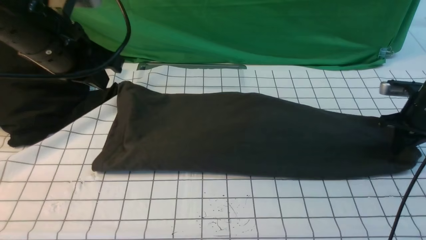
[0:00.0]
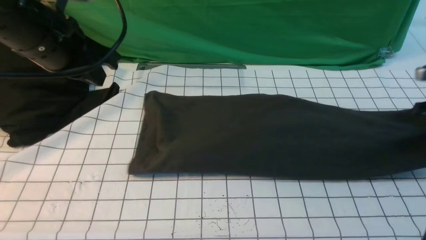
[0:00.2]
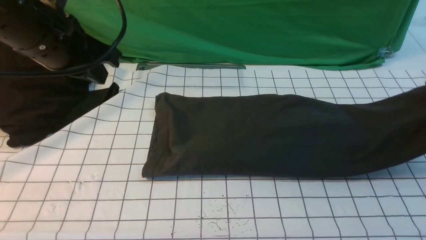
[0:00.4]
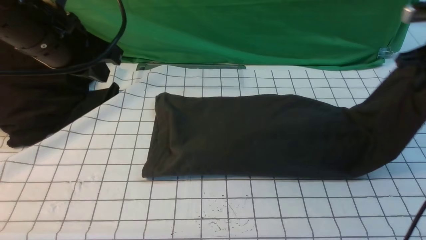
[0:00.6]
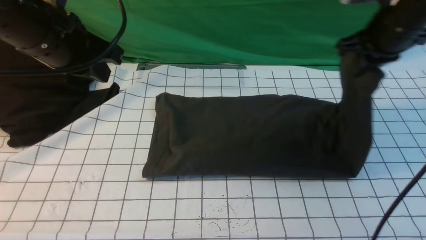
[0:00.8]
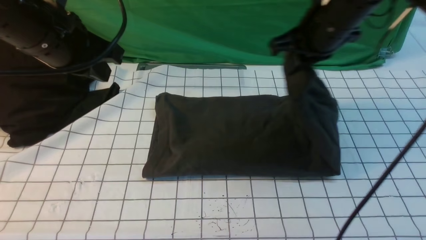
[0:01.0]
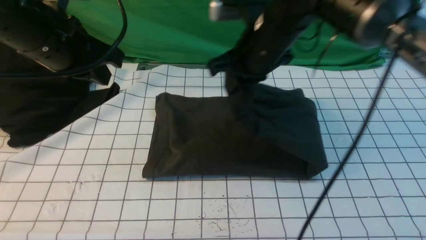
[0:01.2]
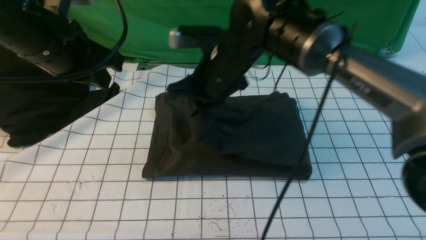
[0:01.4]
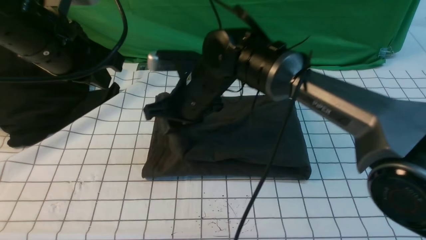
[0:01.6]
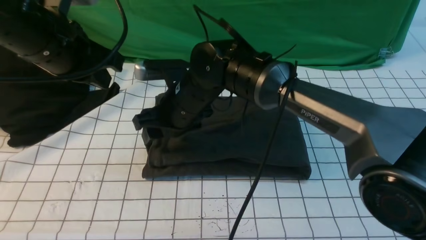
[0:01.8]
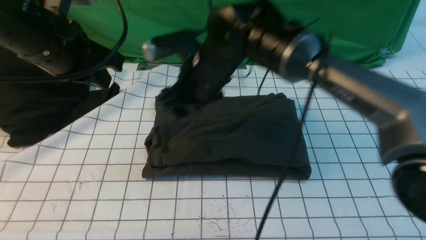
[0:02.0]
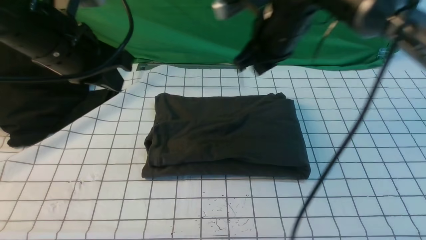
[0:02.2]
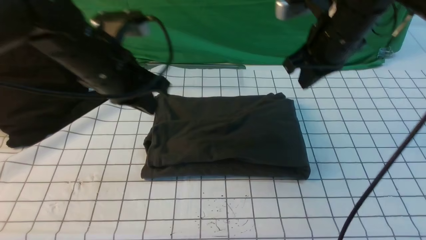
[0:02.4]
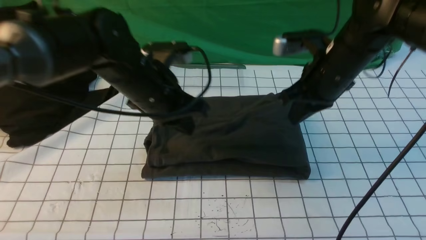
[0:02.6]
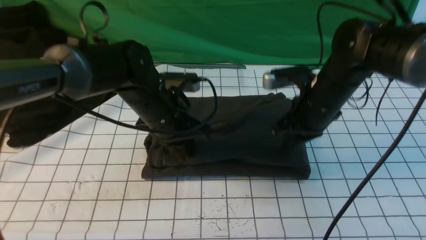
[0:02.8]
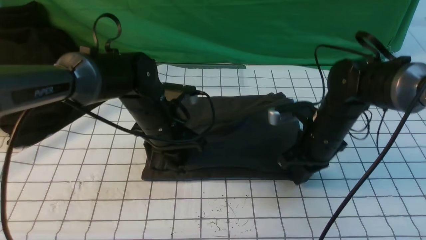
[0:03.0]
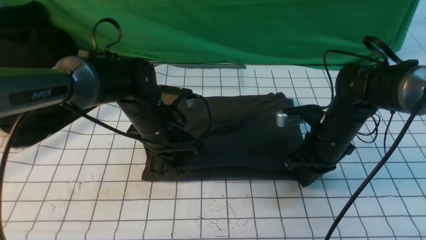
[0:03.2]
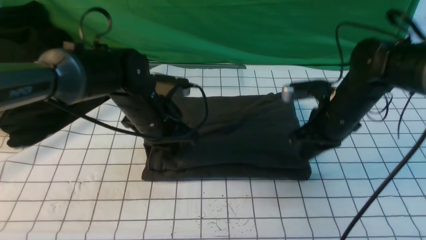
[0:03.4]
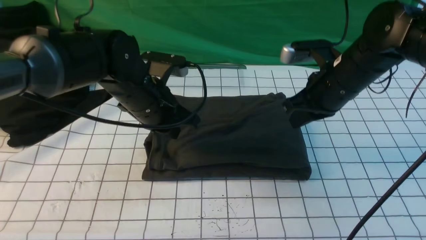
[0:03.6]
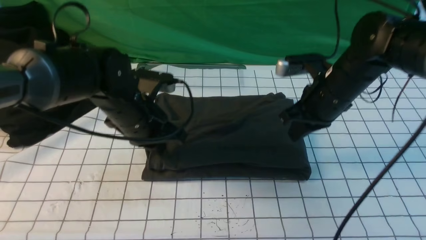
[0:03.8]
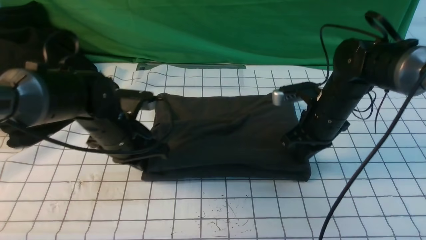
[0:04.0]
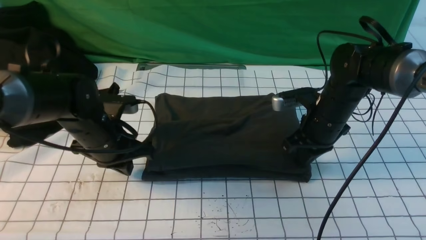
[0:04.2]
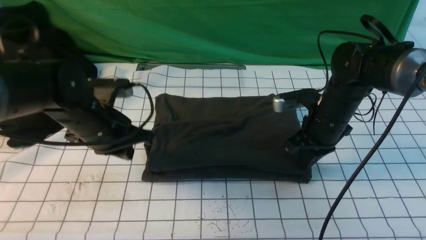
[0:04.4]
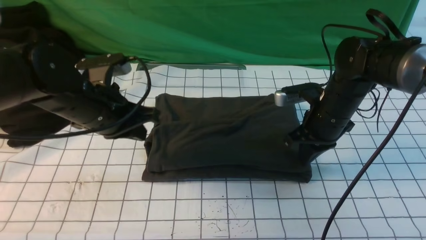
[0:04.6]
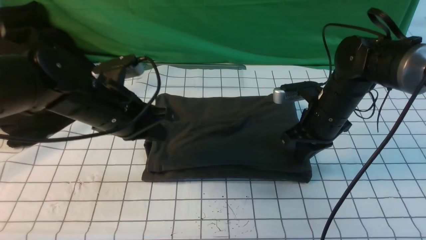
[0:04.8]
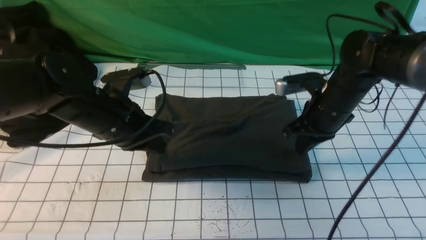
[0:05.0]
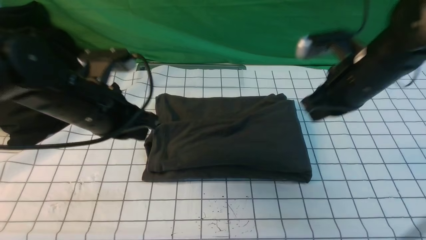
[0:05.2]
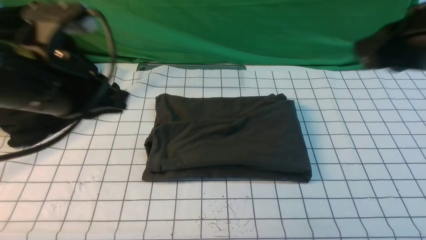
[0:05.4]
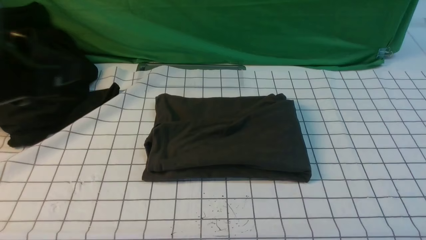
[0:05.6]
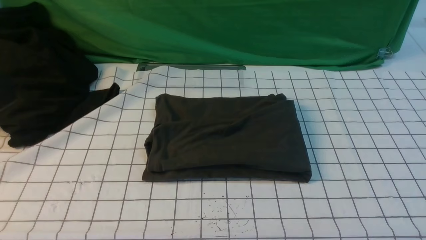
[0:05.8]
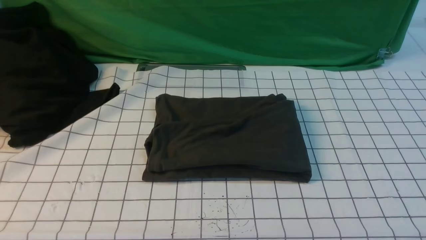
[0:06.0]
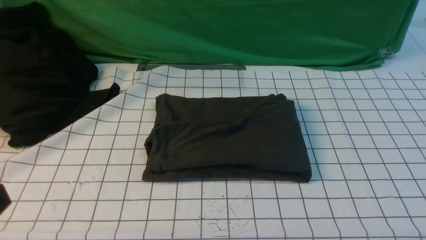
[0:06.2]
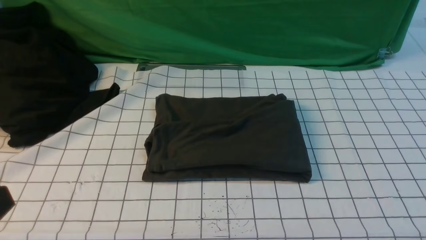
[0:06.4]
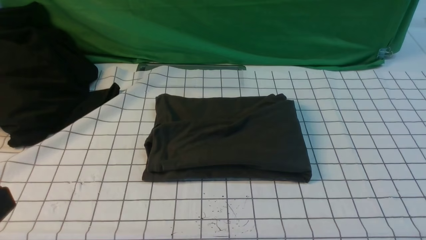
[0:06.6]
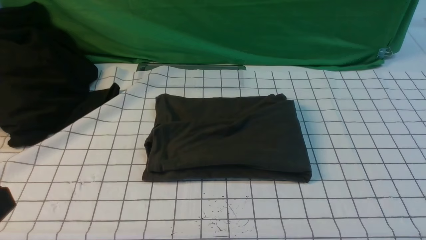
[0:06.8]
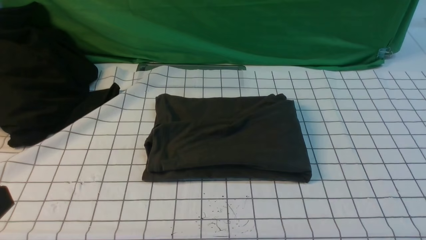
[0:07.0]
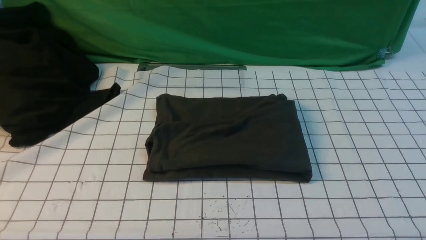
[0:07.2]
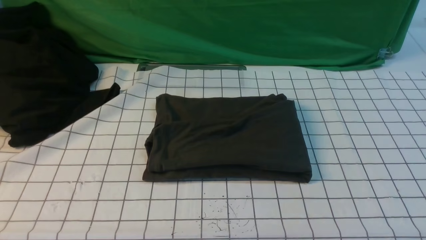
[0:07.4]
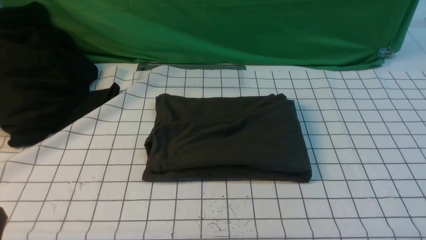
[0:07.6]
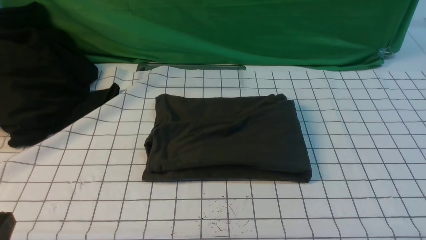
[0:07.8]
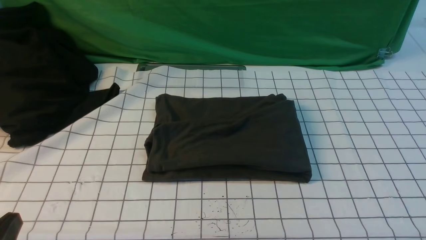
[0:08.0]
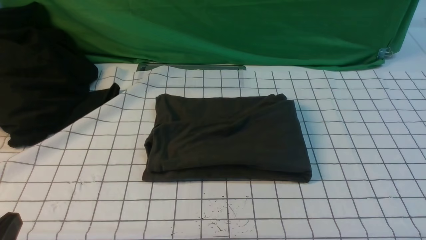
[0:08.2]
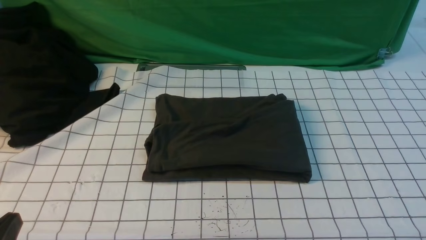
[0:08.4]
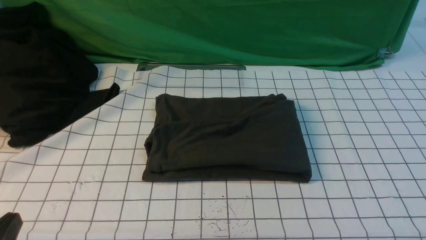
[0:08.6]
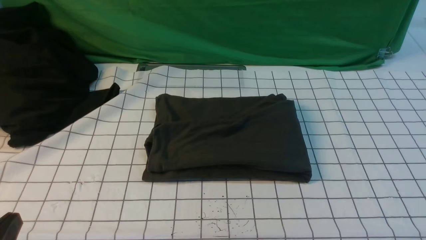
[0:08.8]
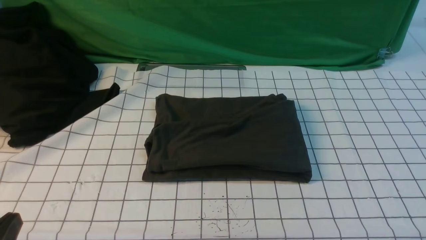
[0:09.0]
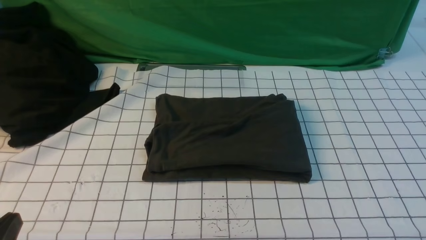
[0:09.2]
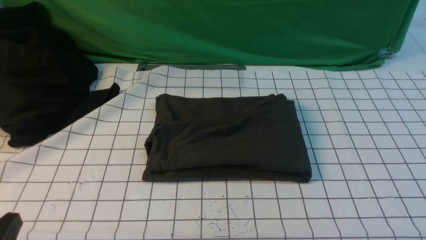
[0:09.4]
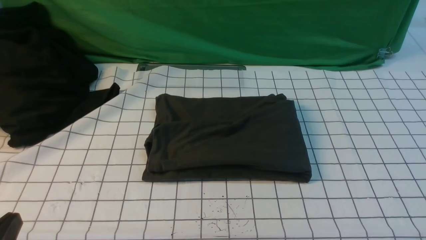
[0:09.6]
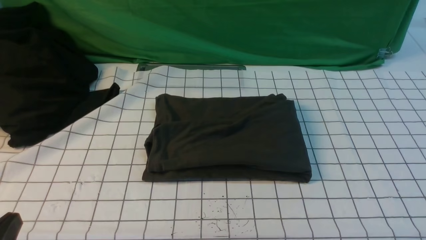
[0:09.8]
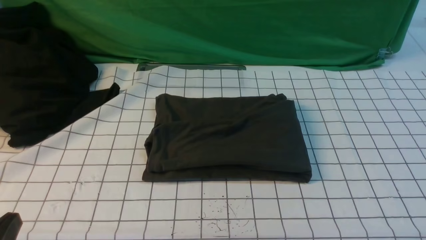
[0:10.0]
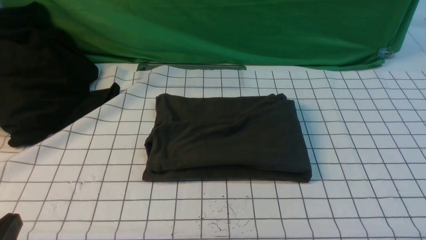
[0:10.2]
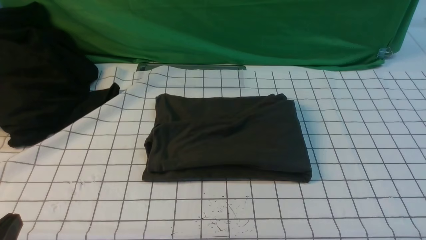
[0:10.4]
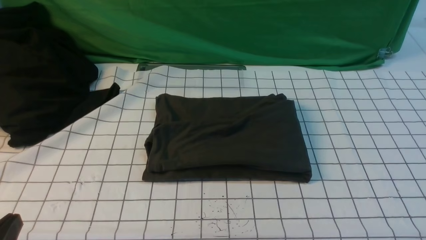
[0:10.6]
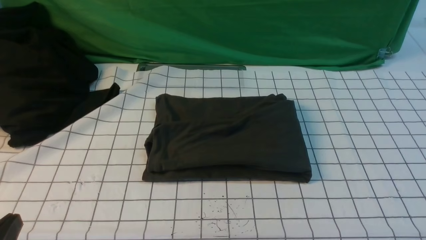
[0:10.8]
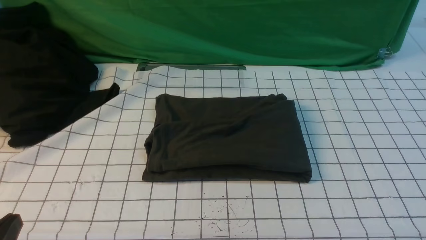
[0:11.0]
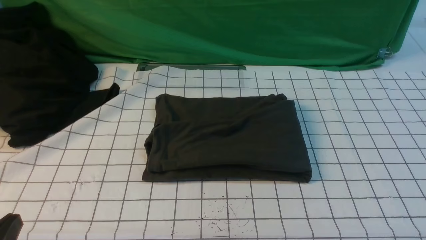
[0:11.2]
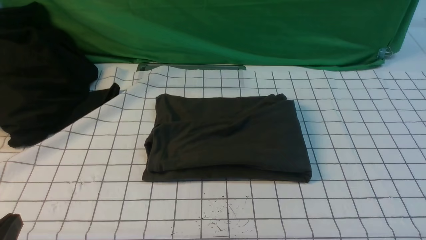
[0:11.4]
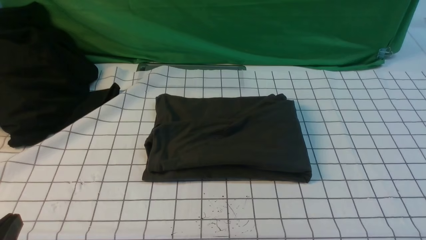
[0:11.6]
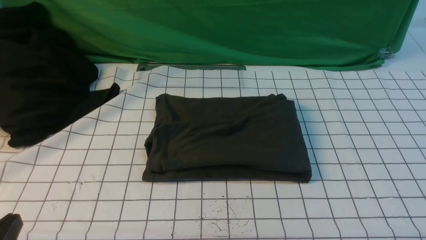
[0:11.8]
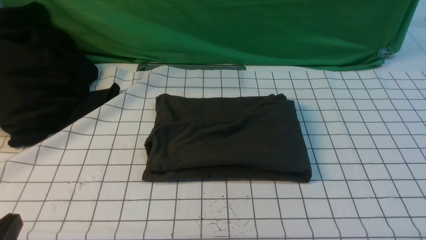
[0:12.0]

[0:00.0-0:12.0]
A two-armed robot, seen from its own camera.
Step, 0:00.4 to 0:02.0: use the right arm to drag the right edge of the fabric to the left and folds it over the left edge.
0:00.0 to 0:01.6: The right gripper travels to the left by roughly 40 cm.
0:01.6 to 0:03.0: The right gripper moves to the right, about 20 cm, and closes up. The left gripper is displaced downward and to the right by some 20 cm.
0:03.0 to 0:04.4: The left gripper is displaced to the left by about 10 cm.
0:04.4 to 0:06.0: The right gripper goes some 40 cm backward, upward and to the right. Meanwhile the left gripper goes some 35 cm backward and upward.
0:10.4 to 0:12.0: Both grippers stay about where they are.
